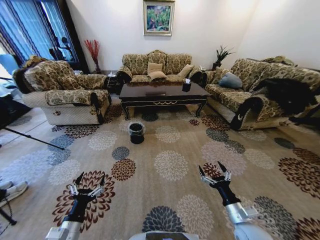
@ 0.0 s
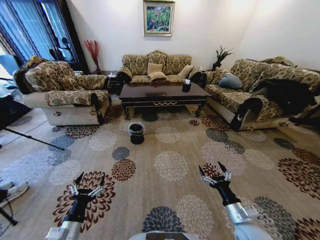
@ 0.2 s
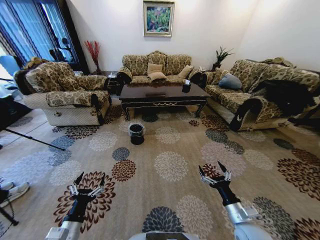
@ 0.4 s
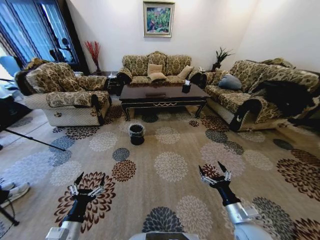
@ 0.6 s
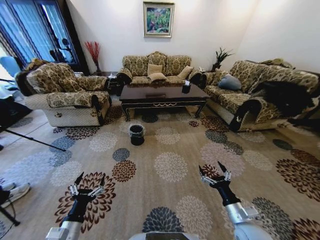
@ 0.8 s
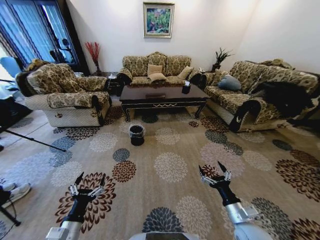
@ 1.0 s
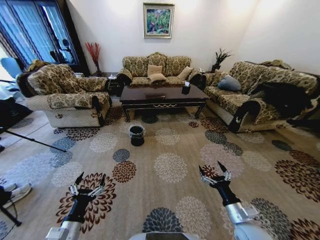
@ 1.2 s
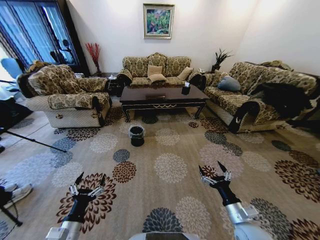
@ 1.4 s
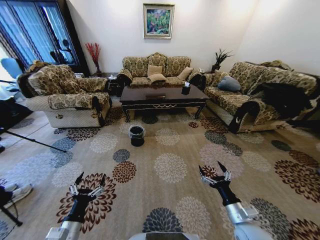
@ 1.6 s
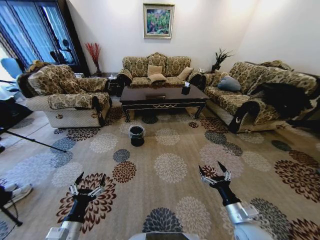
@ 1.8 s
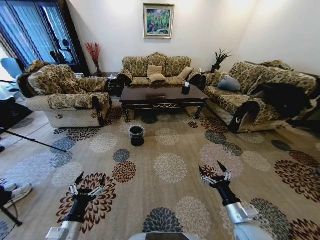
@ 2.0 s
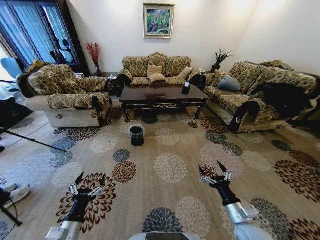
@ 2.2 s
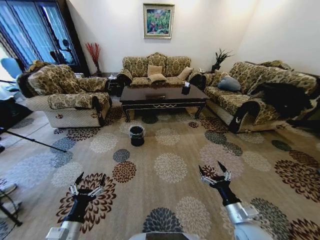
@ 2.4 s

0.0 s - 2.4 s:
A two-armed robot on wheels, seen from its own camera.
Task of the whole recording: Move to the front of the table and pick up the trash from the floor, then place it into the trash bin.
1.2 s - 2.4 s: Neither gripper changes place.
